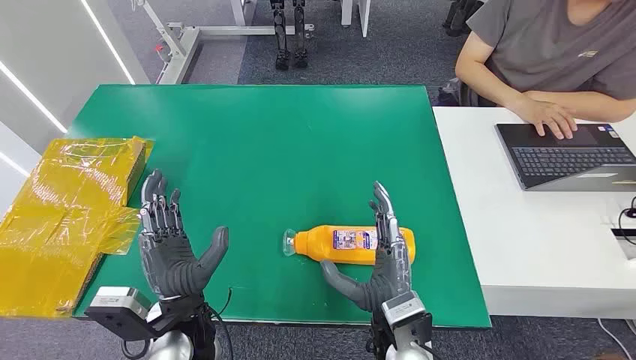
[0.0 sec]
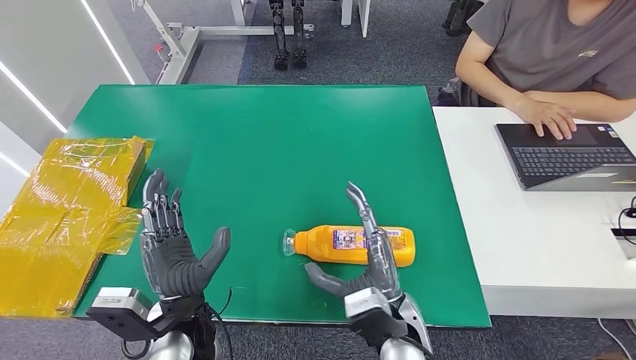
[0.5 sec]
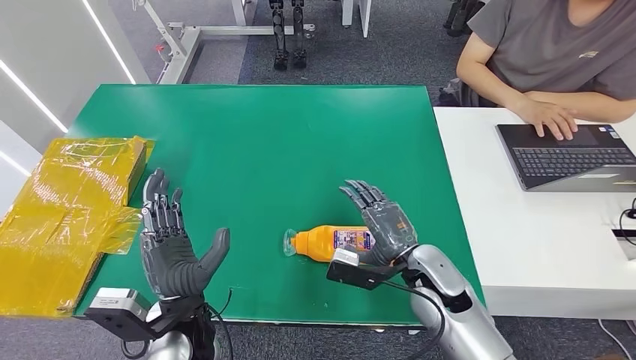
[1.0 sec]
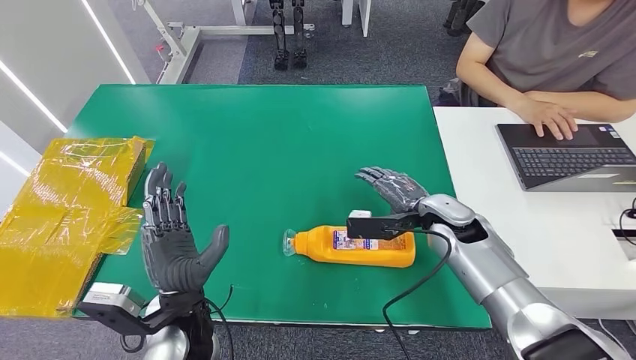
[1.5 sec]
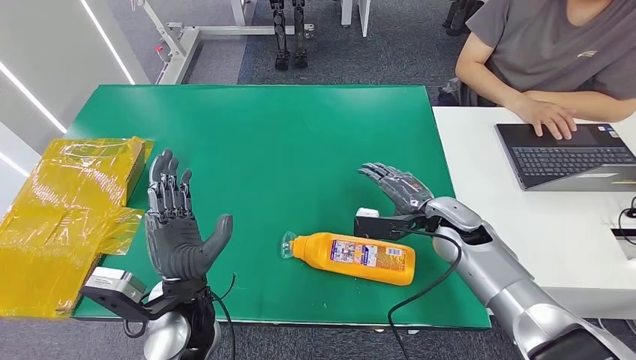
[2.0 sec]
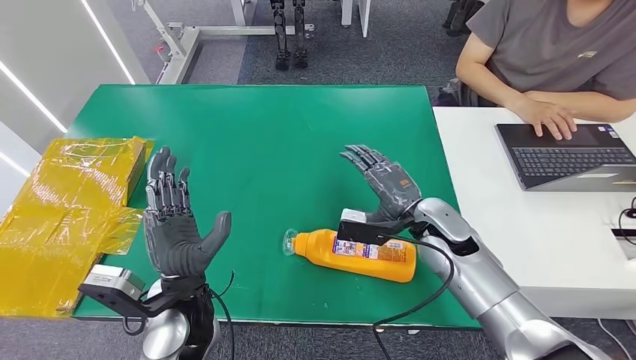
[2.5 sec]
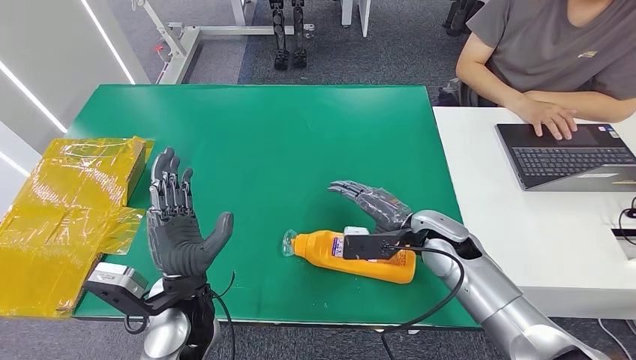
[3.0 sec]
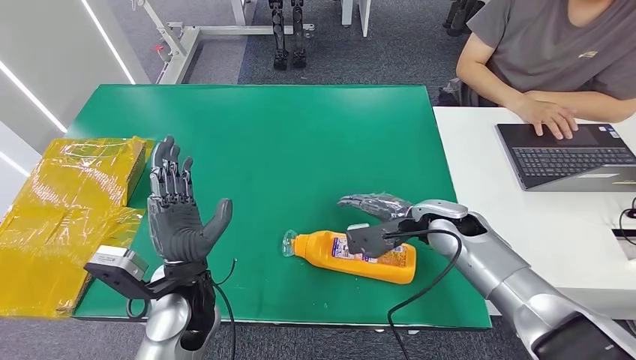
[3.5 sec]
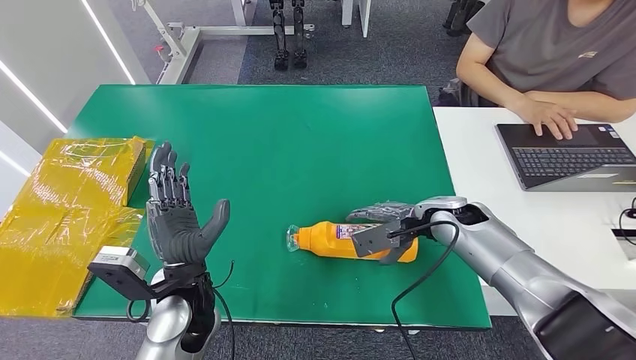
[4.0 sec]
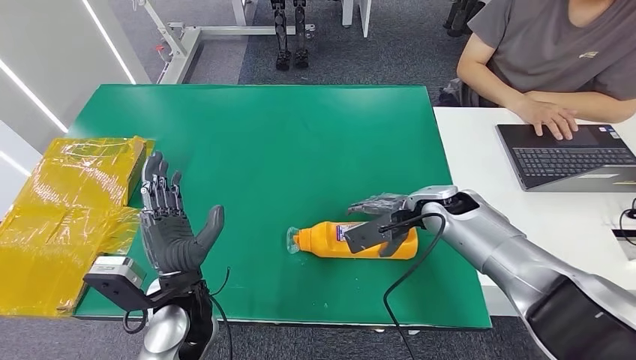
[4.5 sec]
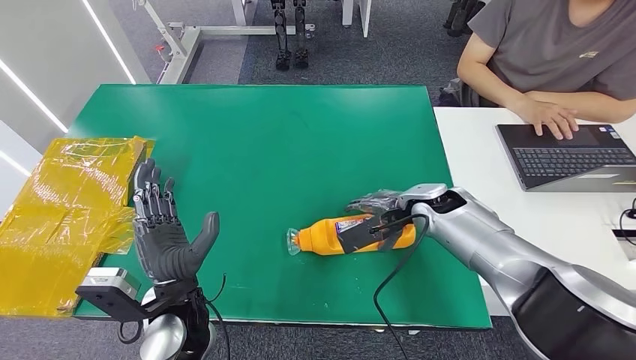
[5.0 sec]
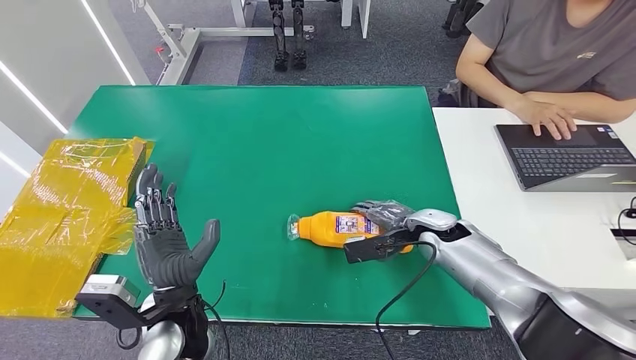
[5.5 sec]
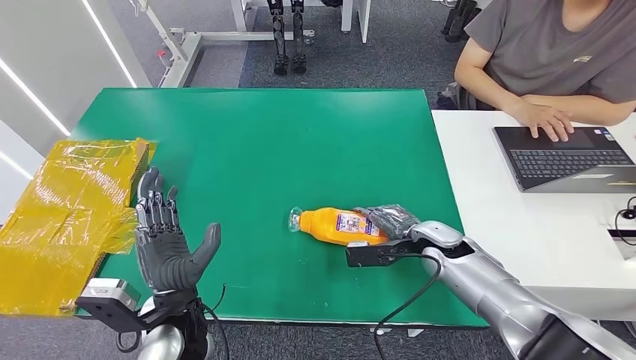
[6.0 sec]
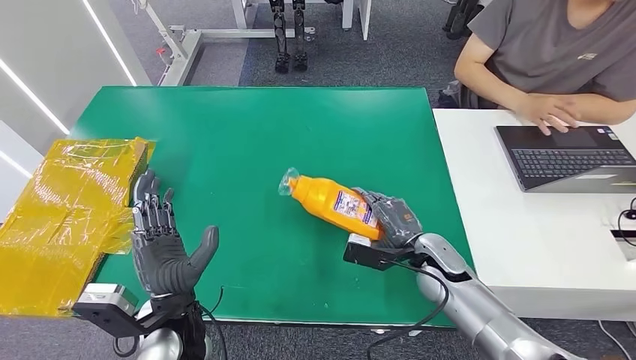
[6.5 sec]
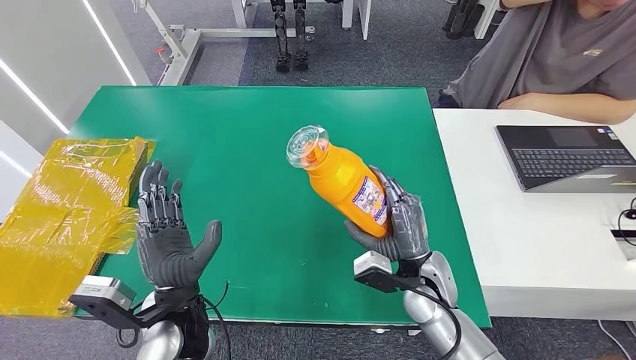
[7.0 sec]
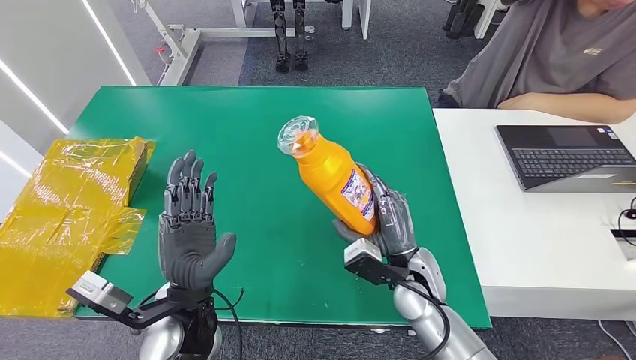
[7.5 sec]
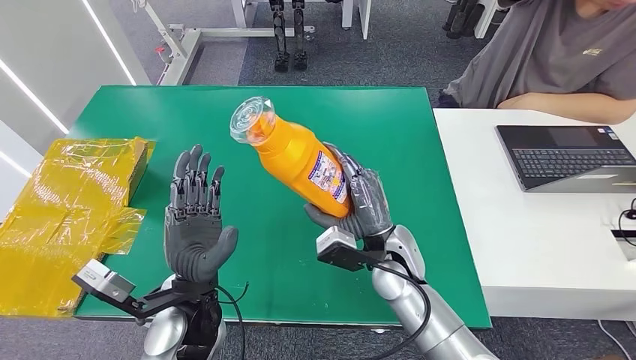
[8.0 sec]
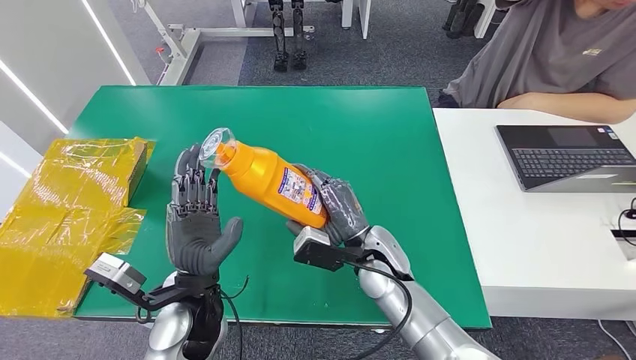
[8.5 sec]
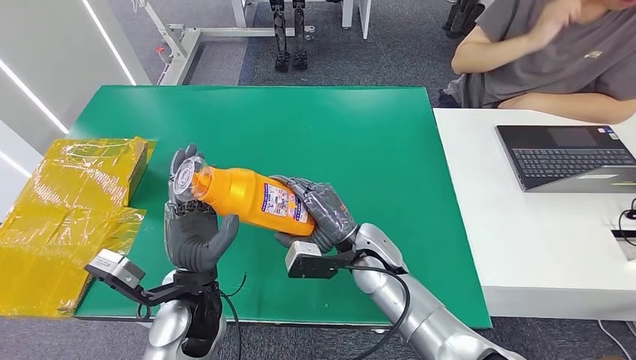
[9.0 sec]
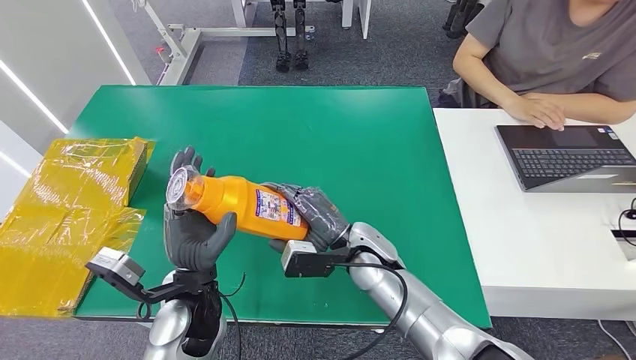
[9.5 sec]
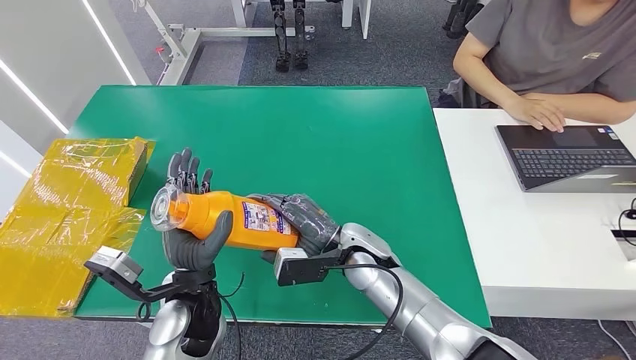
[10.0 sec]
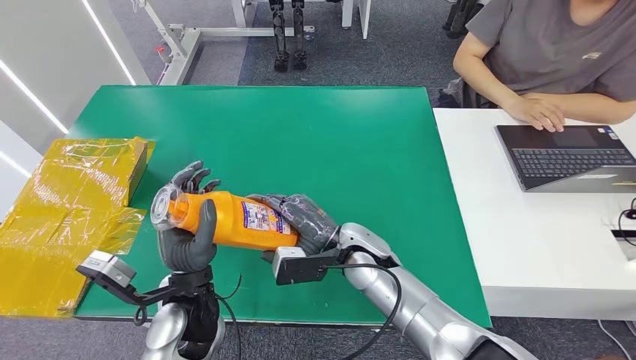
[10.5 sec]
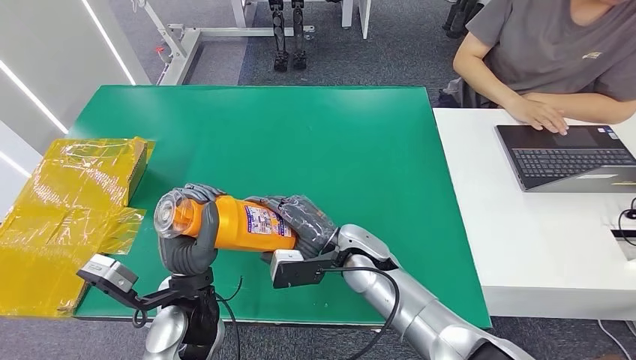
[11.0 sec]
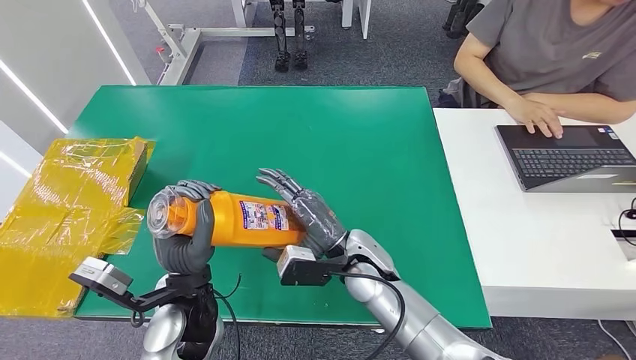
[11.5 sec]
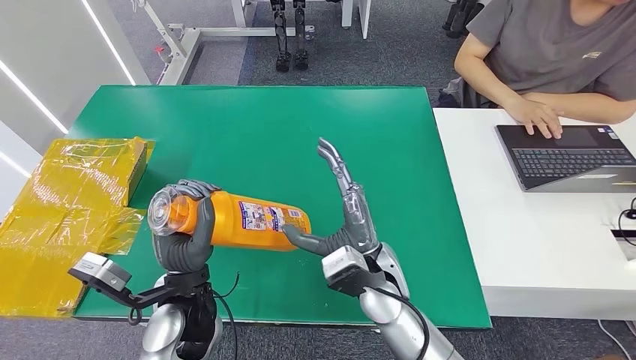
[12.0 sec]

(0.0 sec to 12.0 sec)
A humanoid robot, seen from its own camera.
Step, 0.0 sec - 9.0 sec: Pick up the bottle from the table.
8.0 sec - 10.0 sec: The right hand shifts by some 5 cm.
10.0 sec - 12.0 sec: The right hand shifts approximately 5 cm backward.

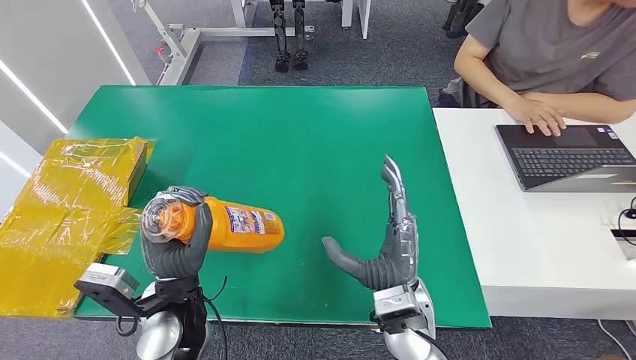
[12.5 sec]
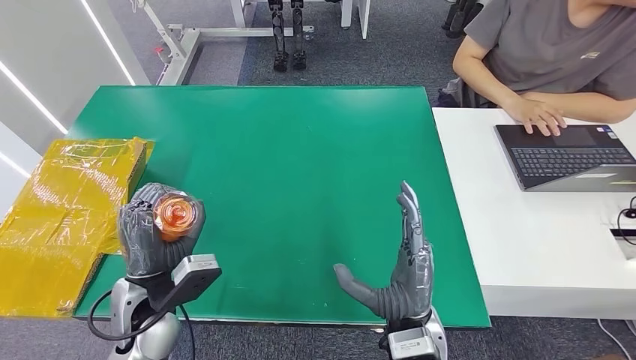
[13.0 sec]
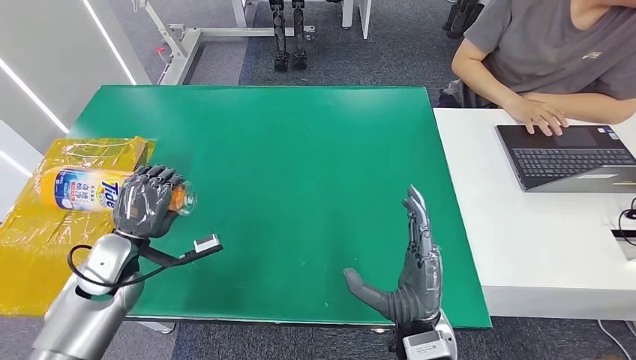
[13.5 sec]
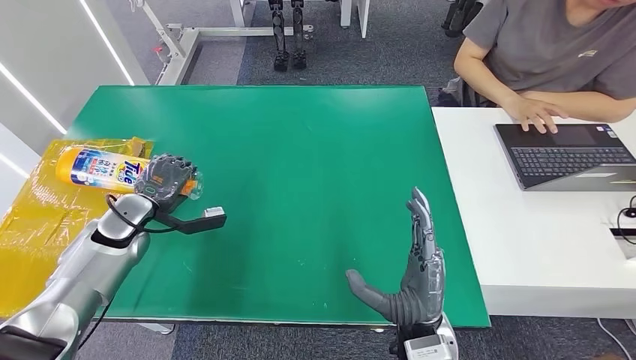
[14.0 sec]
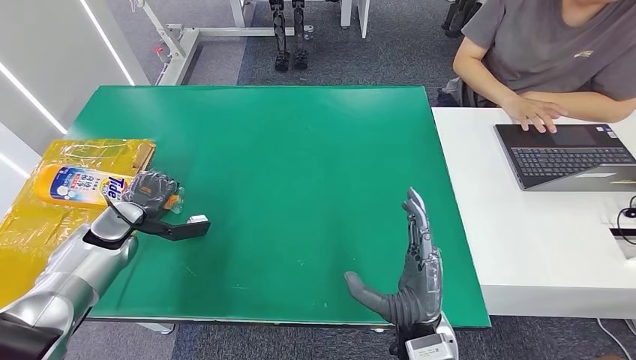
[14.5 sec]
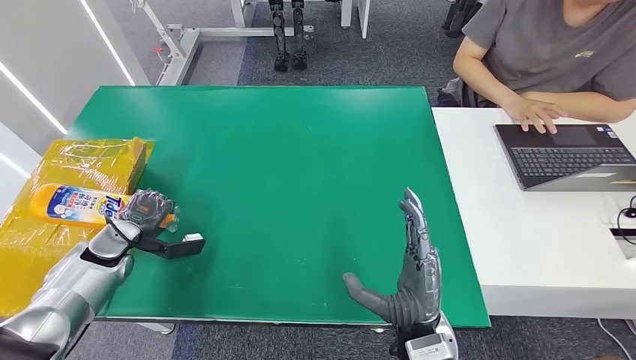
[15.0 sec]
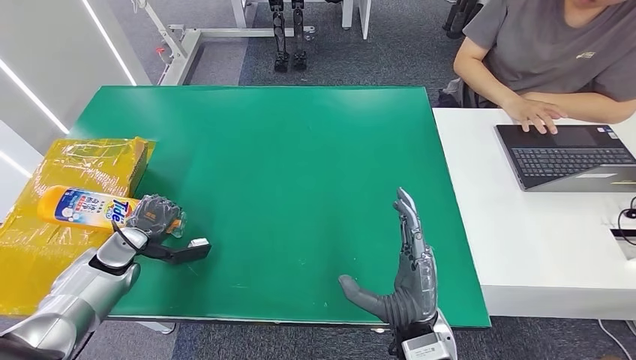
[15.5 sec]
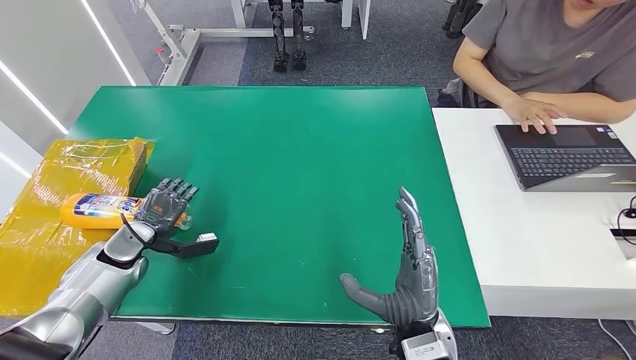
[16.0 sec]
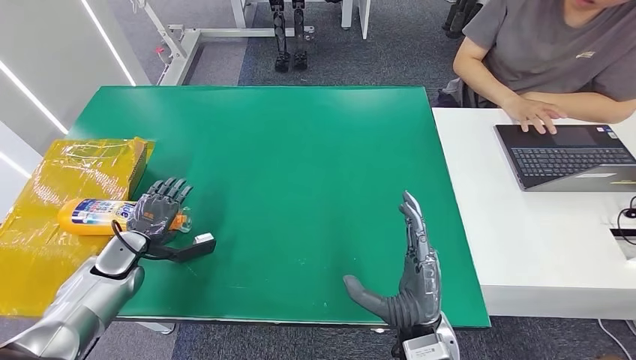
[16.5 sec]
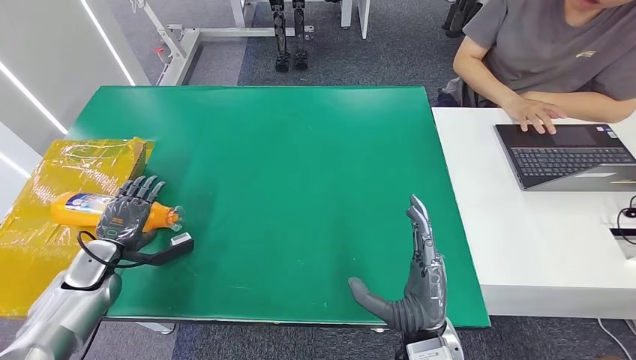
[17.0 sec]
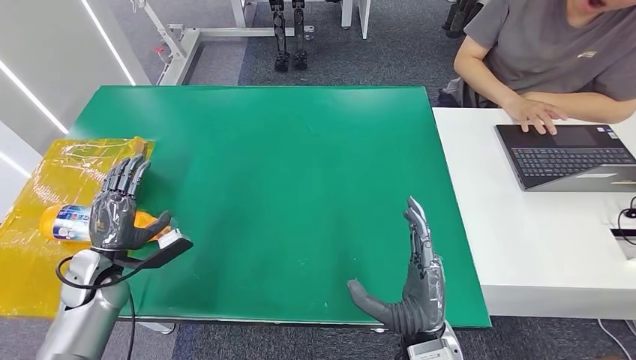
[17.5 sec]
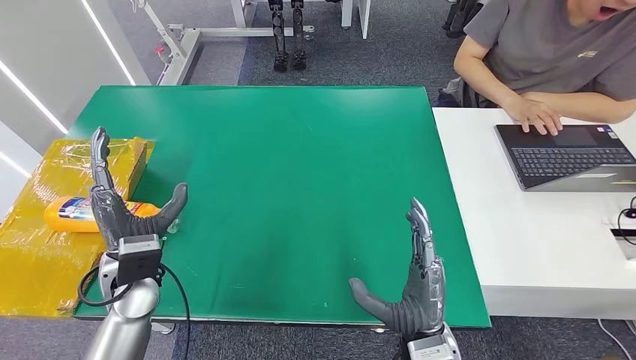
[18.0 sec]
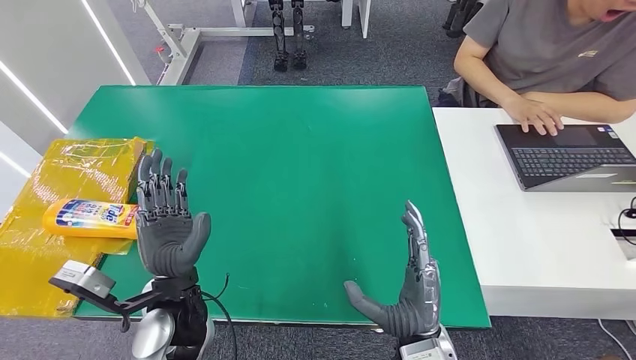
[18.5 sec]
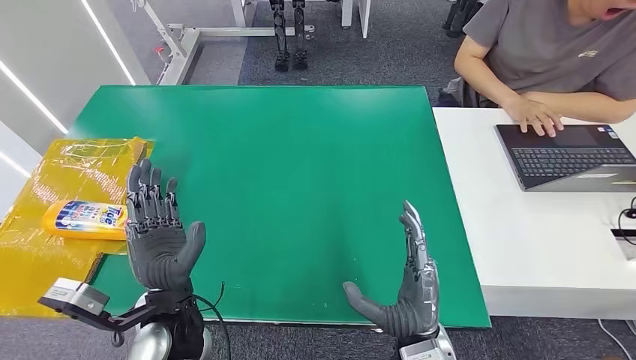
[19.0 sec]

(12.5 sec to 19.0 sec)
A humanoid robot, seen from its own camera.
Step, 12.5 sec - 18.5 sec: Turn the bottle to the front side.
12.5 sec - 14.5 sec: The left hand goes some 25 cm to the left and forward. The right hand changes place by about 5 cm.
14.5 sec - 17.0 sec: The left hand heads backward, covering some 5 cm.
17.0 sec - 19.0 sec: The left hand shifts about 30 cm to the right, backward and upward.

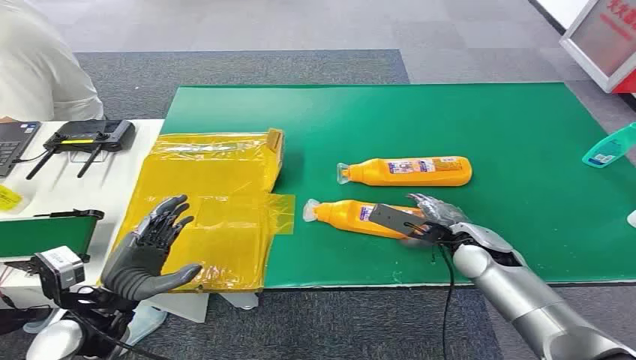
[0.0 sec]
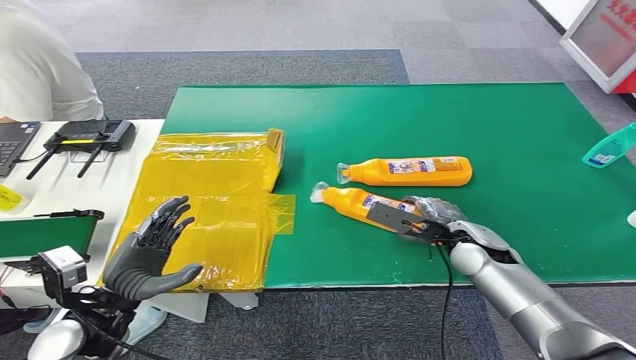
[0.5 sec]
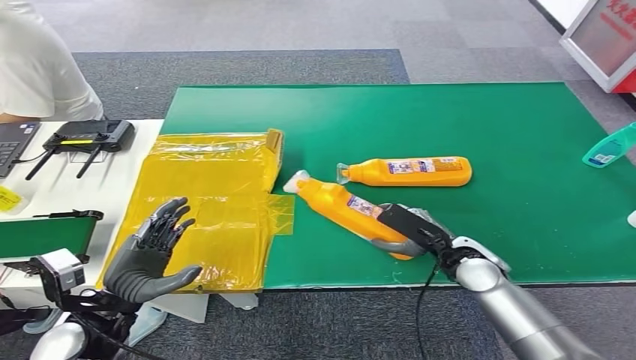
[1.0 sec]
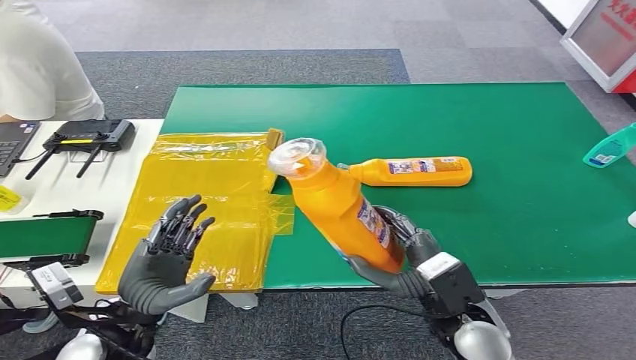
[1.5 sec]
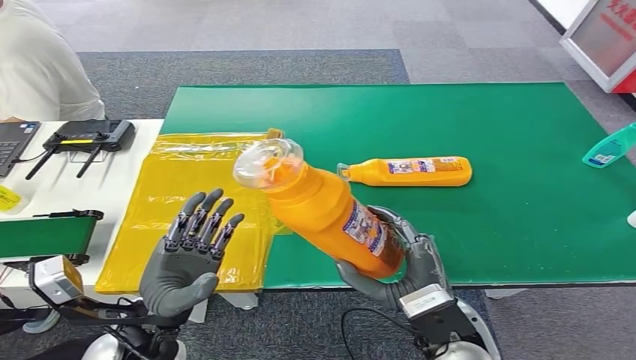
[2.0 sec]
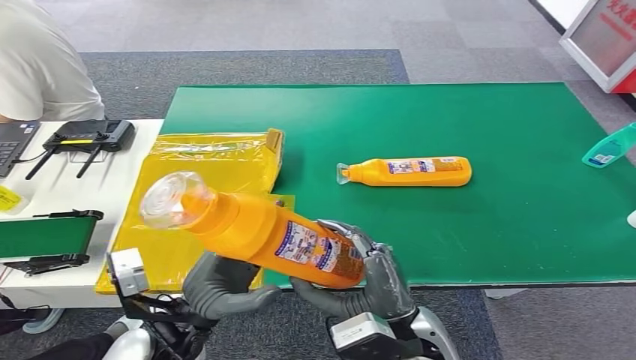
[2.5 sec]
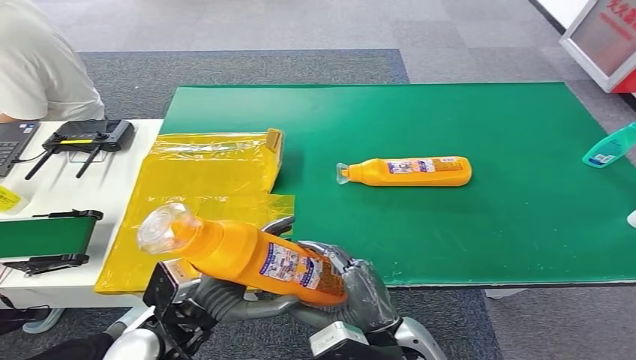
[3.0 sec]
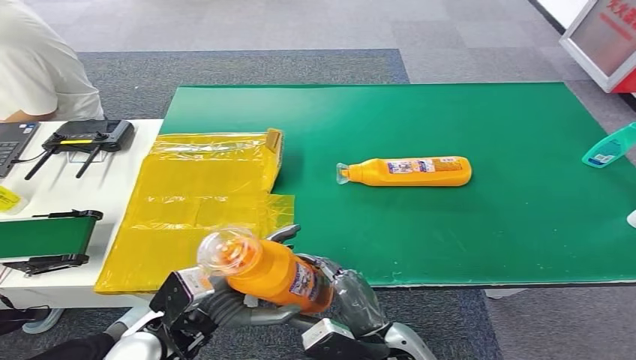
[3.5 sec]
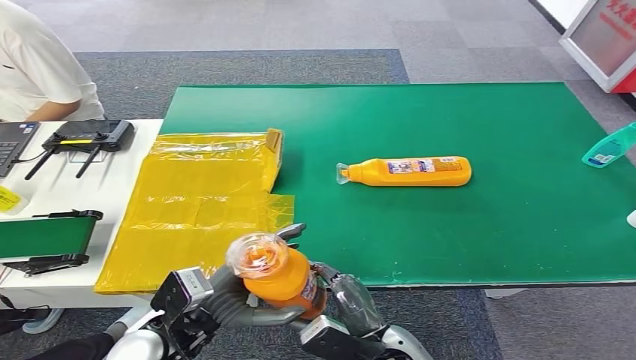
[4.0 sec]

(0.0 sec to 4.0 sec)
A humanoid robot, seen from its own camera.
Step, 0.0 sec - 2.0 sec: Pick up the bottle from the table.
2.0 sec - 4.0 sec: The right hand travels downward and to the left by roughly 10 cm.
